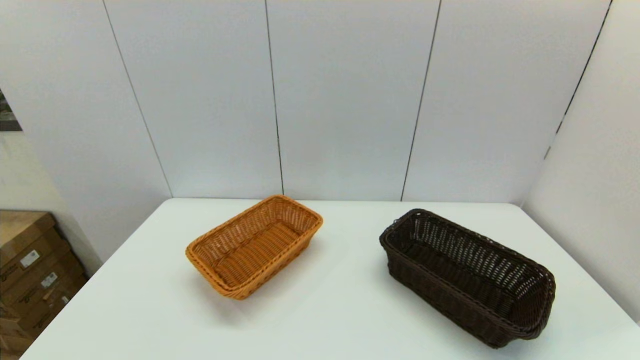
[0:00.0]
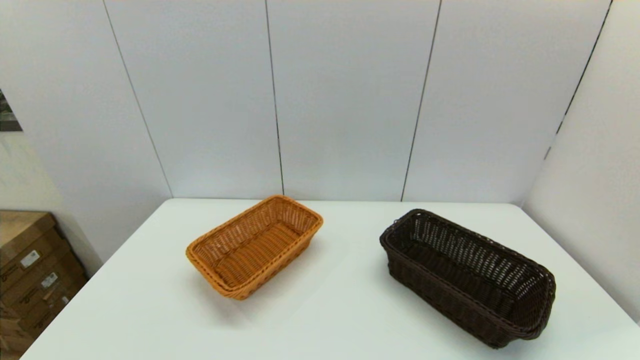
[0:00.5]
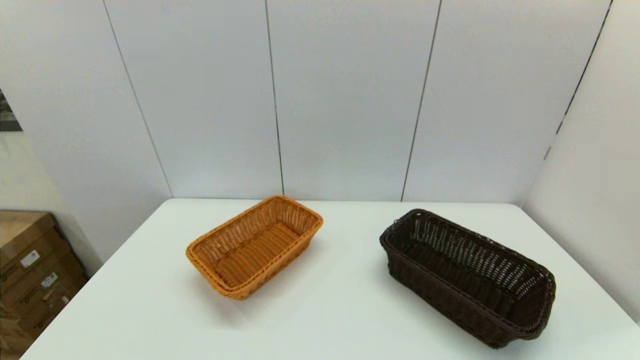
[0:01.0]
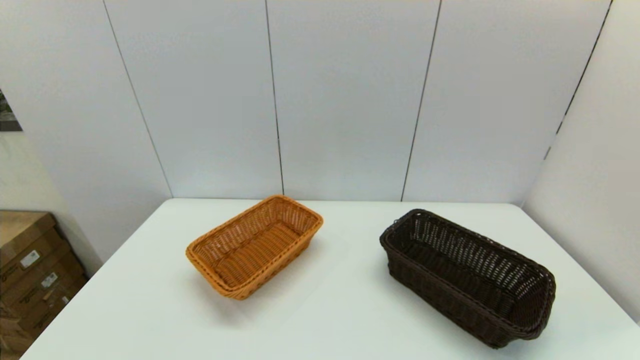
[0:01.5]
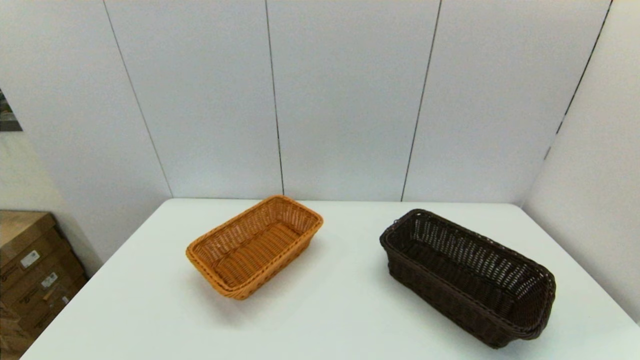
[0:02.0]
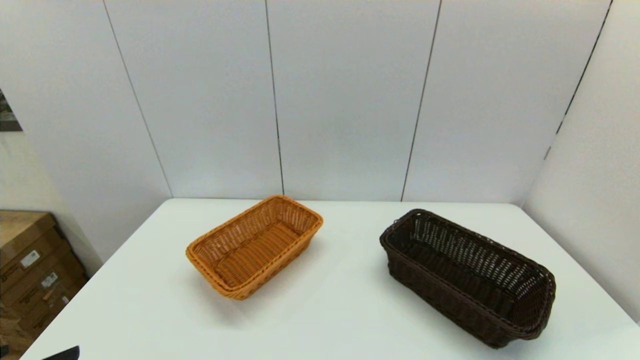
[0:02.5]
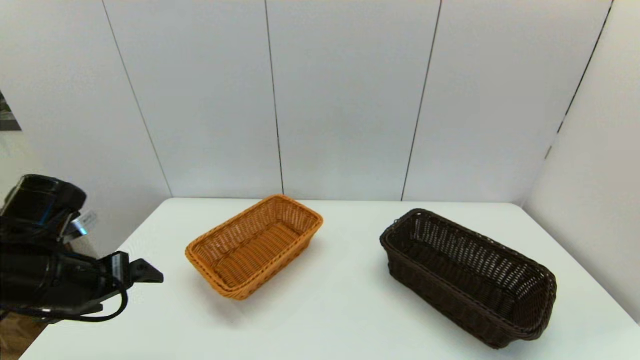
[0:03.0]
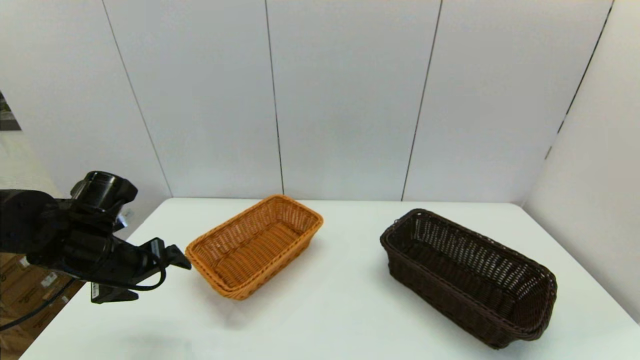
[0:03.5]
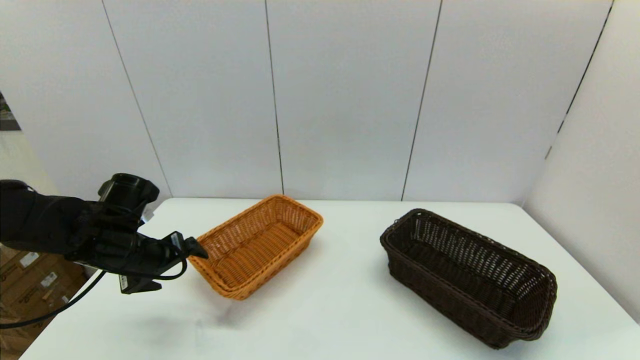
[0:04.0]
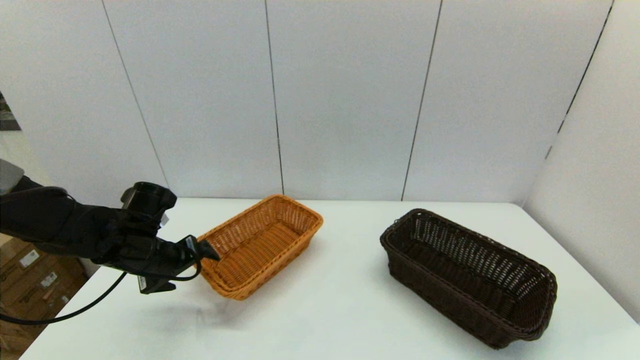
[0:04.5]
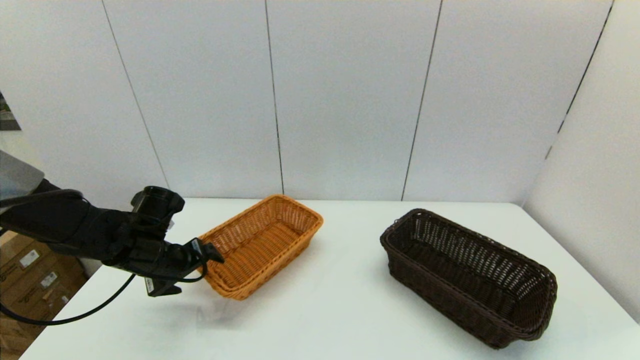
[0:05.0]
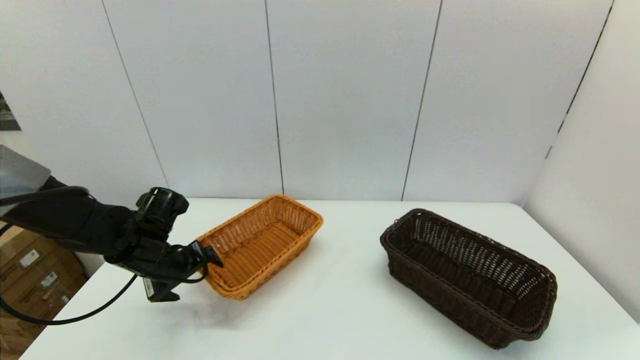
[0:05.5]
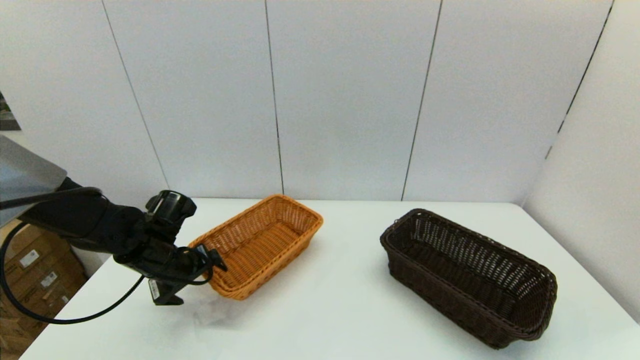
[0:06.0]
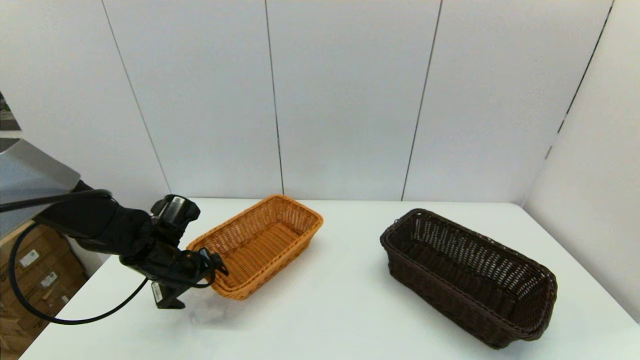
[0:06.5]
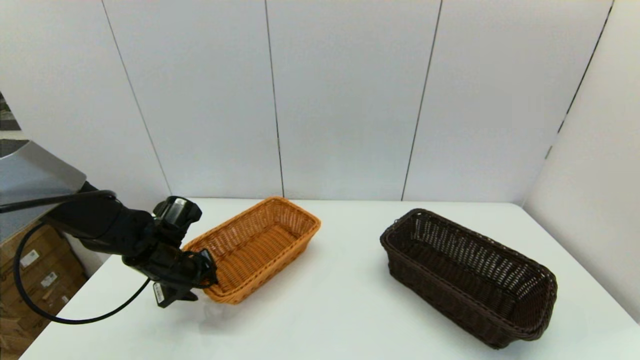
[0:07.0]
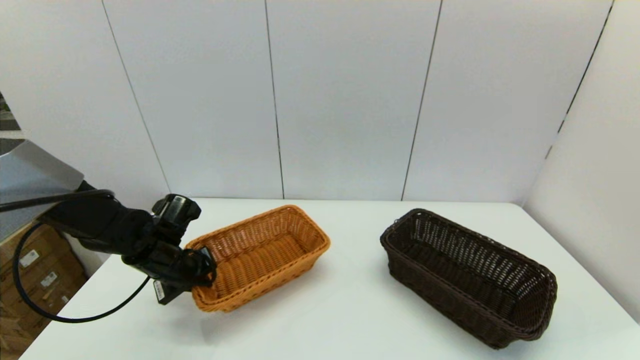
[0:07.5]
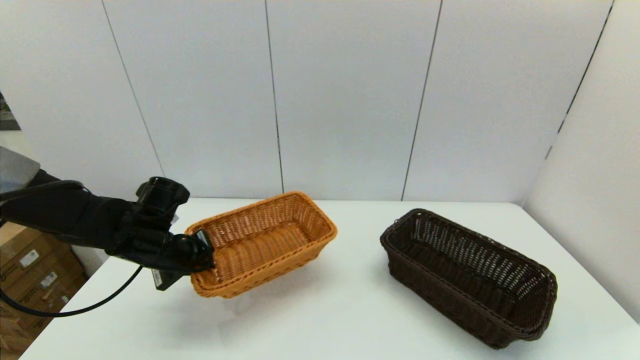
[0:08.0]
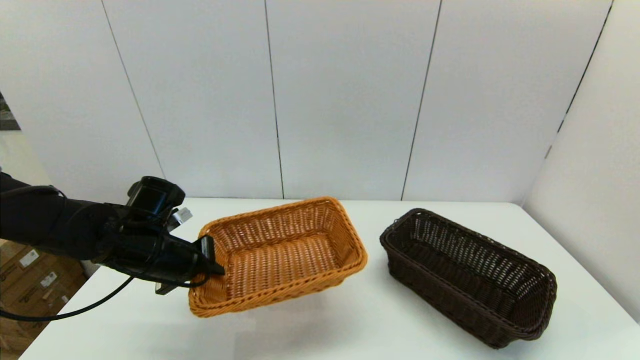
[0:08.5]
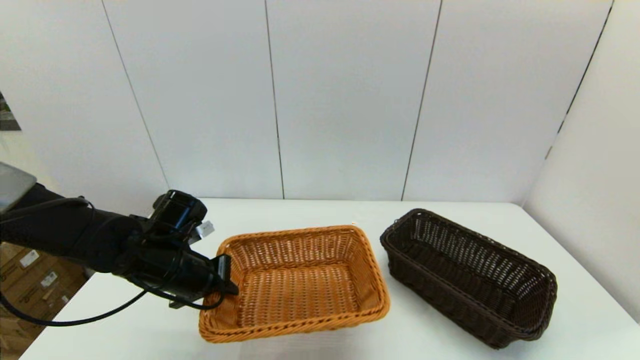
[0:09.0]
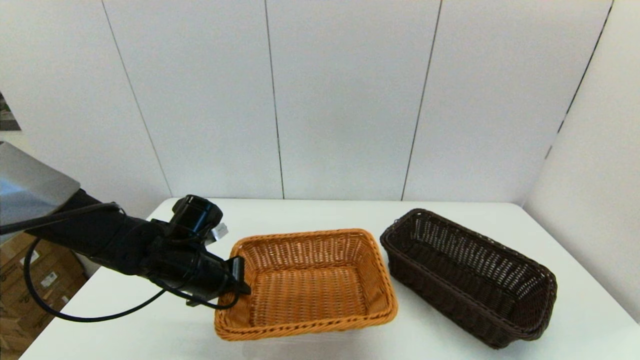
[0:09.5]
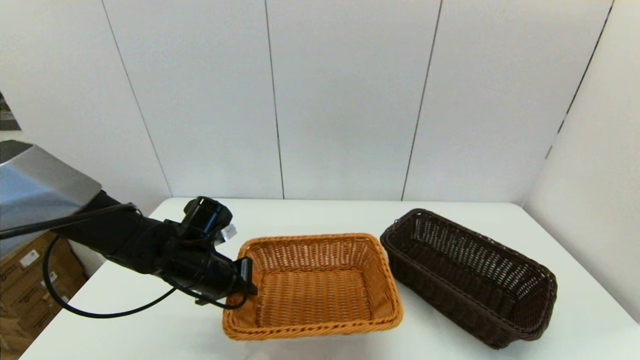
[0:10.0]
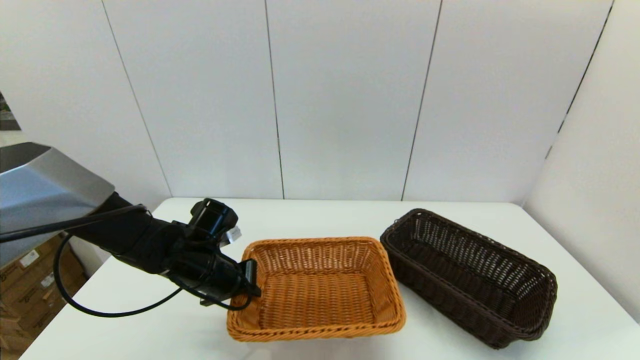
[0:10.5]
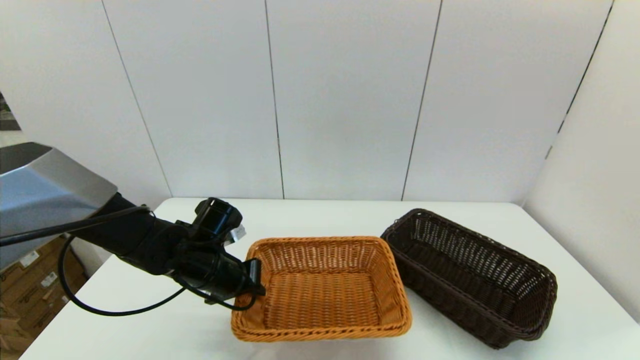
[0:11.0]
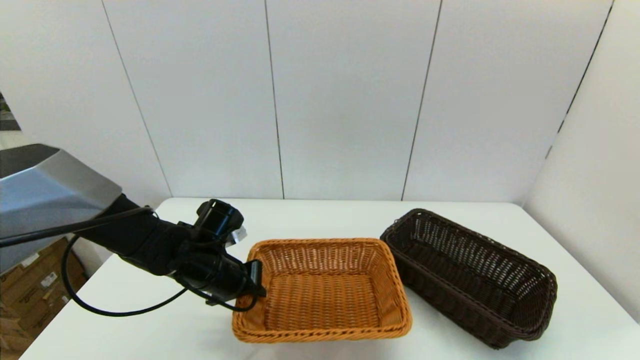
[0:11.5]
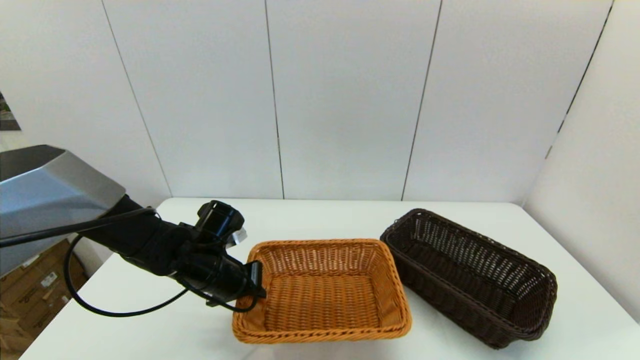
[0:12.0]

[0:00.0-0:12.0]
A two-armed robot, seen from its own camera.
Task of the whole recording: stack a basket on top of another basket.
Step, 0:02.5 to 0:07.5: Grasp the light basket with the left gripper.
0:02.0 to 0:04.0: The left gripper heads forward, covering roughly 30 cm.
0:04.0 to 0:06.0: The left gripper shifts by about 5 cm.
0:06.0 to 0:08.0: The left gripper closes up.
0:08.0 to 0:10.0: The left gripper heads to the right, covering roughly 5 cm.
0:10.0 to 0:12.0: The grippers move only a little.

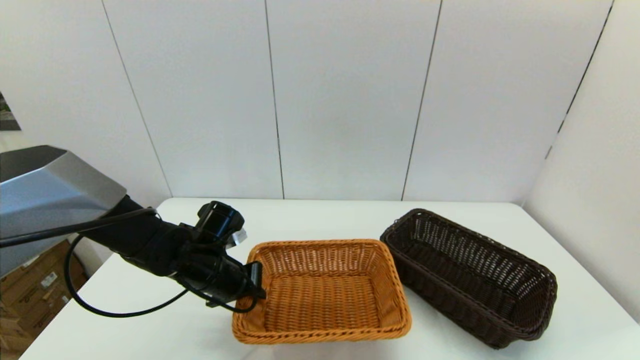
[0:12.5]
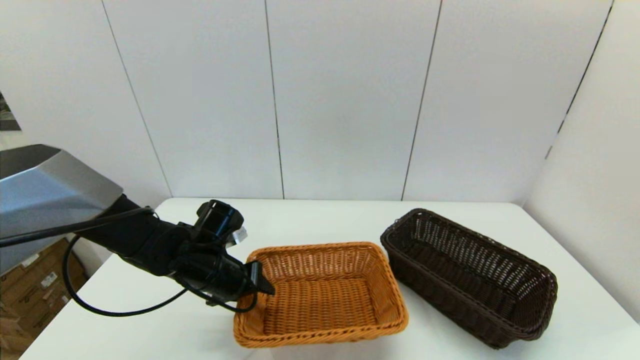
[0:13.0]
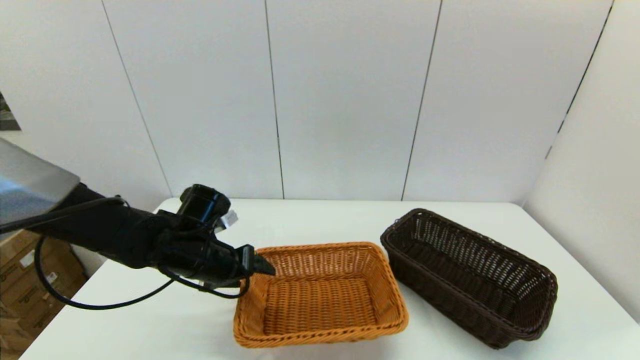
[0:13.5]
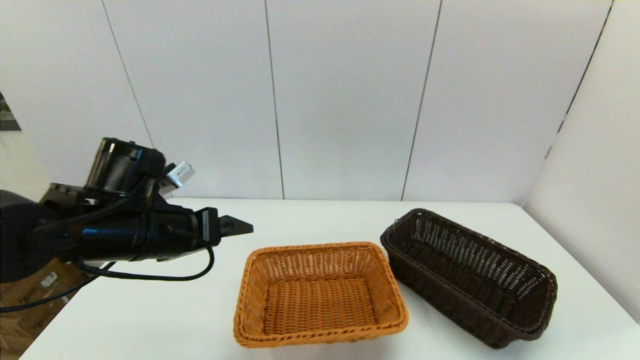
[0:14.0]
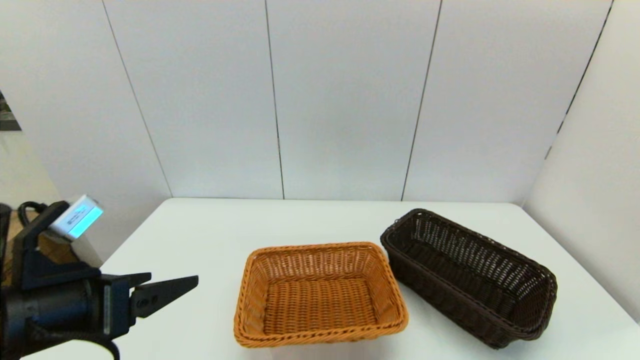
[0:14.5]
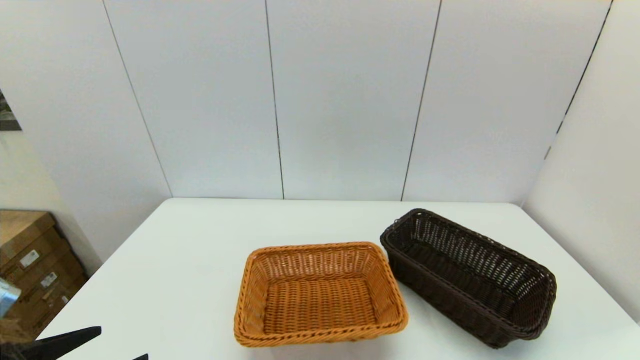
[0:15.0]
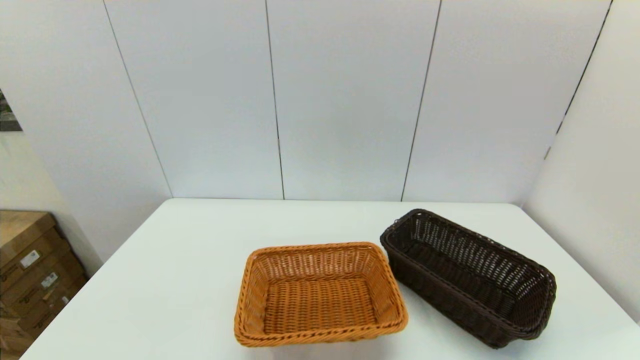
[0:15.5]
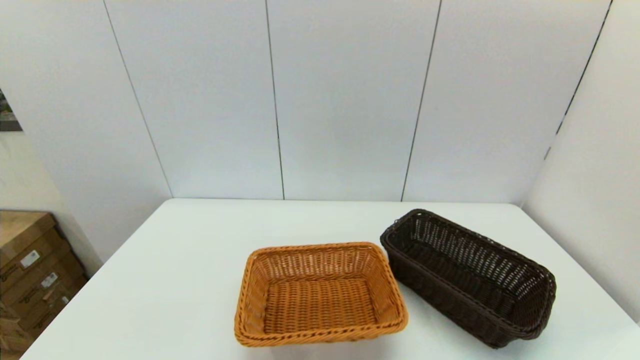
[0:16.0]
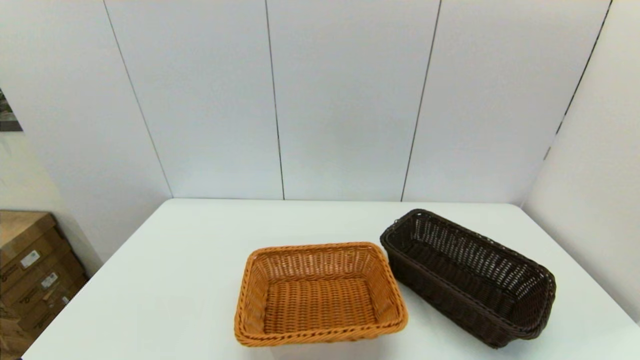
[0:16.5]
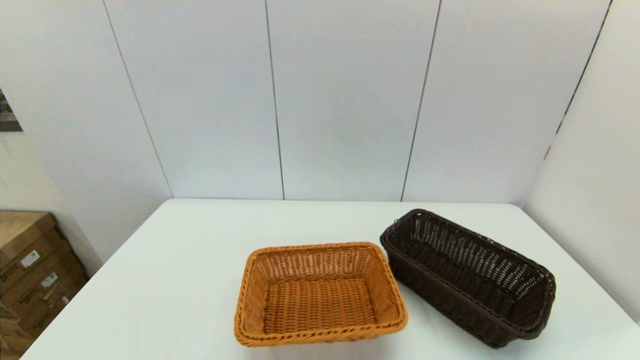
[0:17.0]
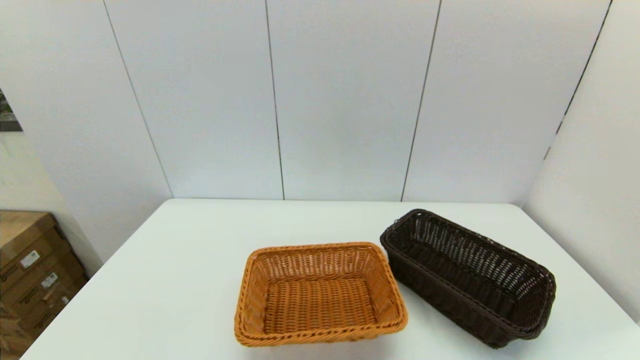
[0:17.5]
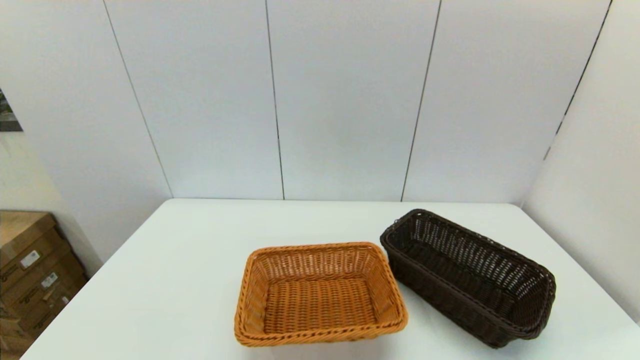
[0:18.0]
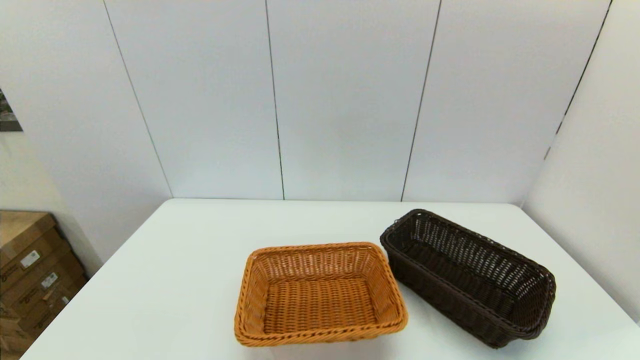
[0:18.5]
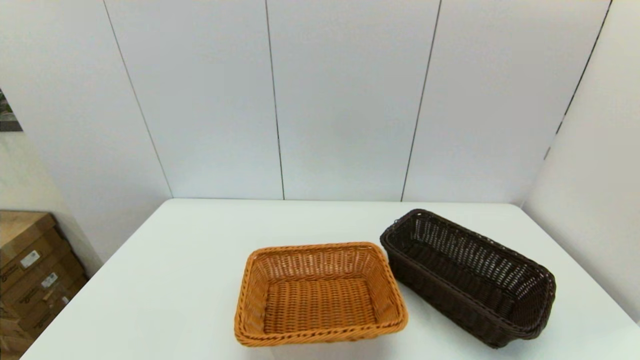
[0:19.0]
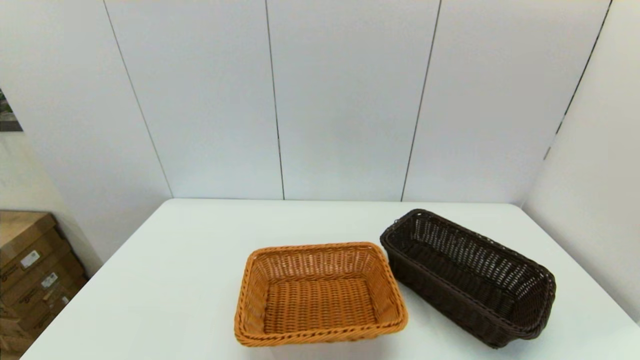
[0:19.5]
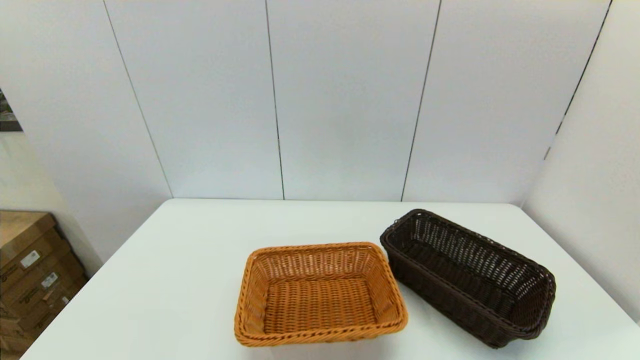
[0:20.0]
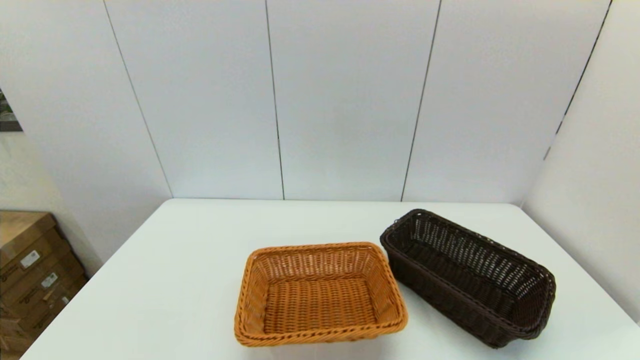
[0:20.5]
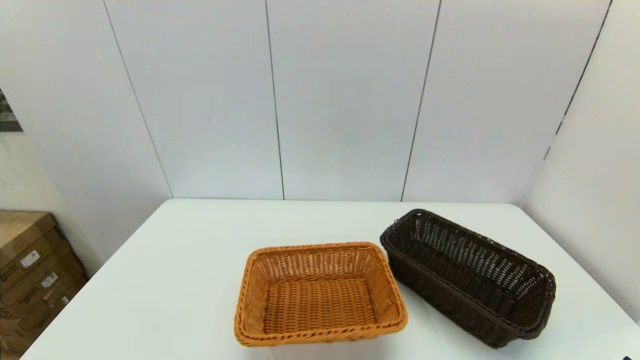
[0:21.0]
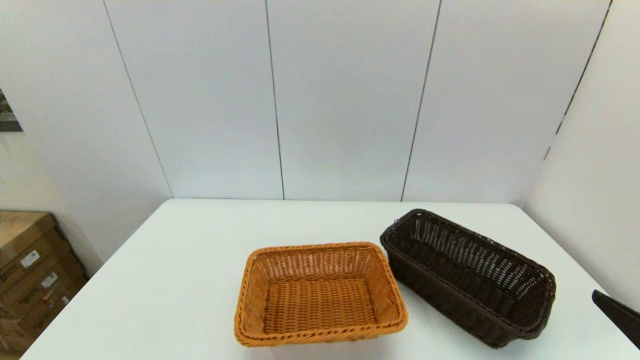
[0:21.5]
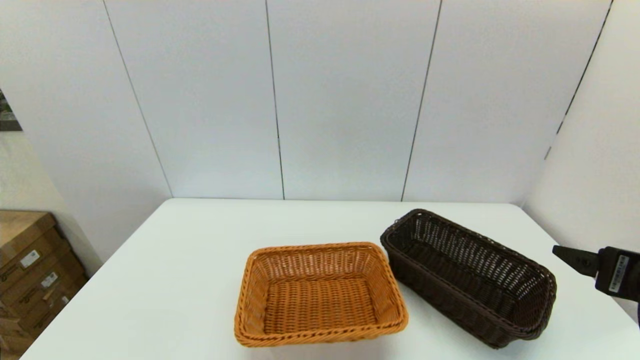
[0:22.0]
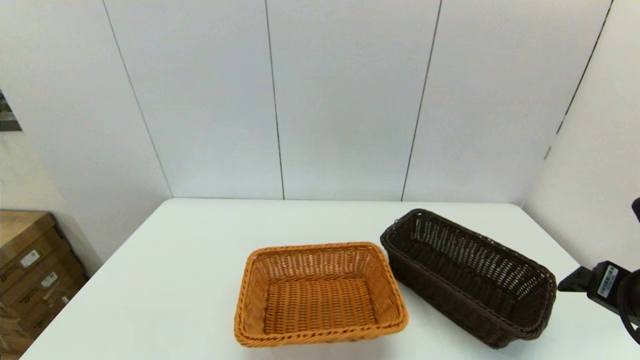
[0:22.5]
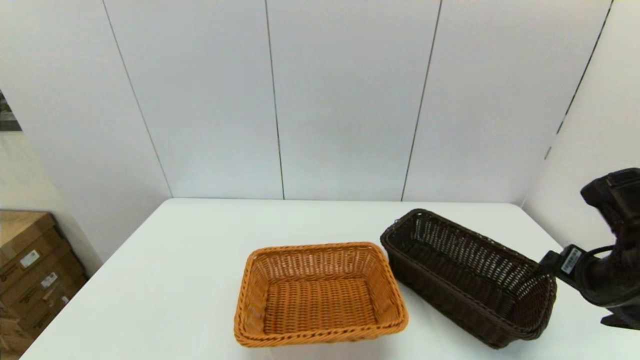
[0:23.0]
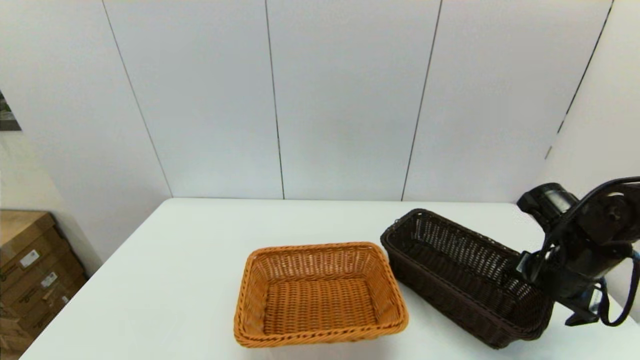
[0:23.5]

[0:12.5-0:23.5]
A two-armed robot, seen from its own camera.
Task of the whole recording: stack a basket on top of another basket.
0:12.5 to 0:14.5: The left gripper is displaced backward, upward and to the left by about 25 cm, and opens up.
0:14.5 to 0:16.0: The left gripper moves backward and downward, about 15 cm.
0:18.0 to 0:20.0: Both grippers stay about where they are.
0:21.5 to 0:23.5: The right gripper moves forward, about 20 cm.
